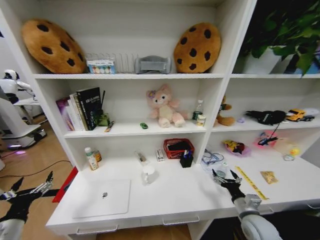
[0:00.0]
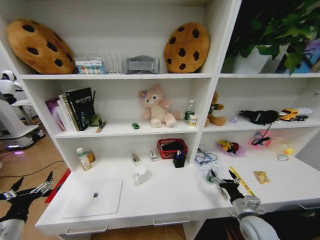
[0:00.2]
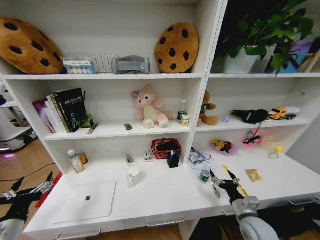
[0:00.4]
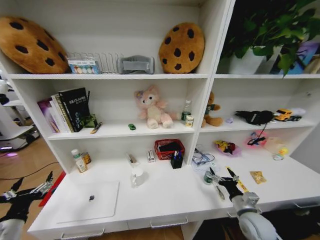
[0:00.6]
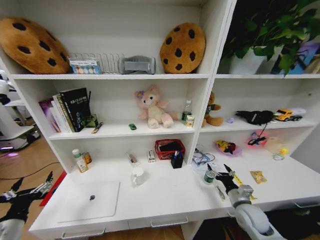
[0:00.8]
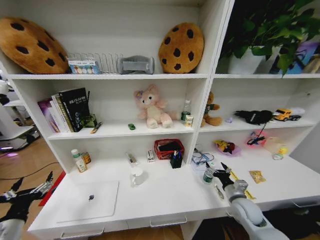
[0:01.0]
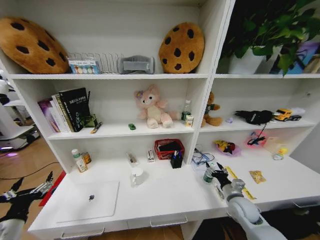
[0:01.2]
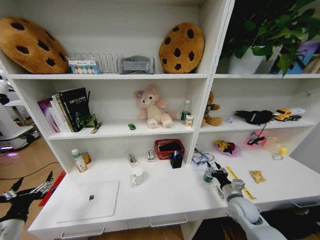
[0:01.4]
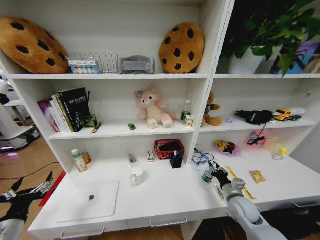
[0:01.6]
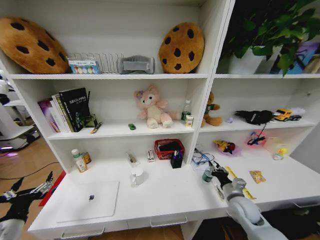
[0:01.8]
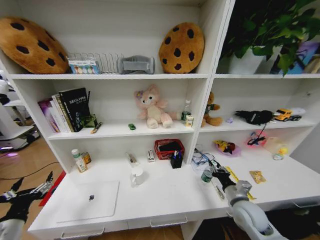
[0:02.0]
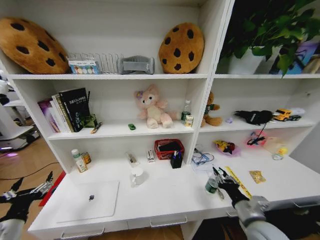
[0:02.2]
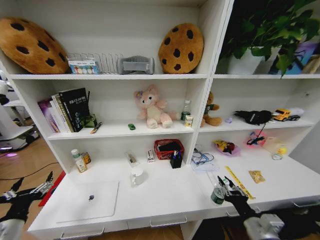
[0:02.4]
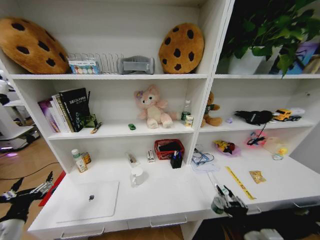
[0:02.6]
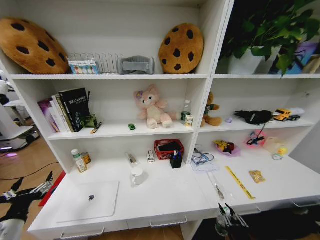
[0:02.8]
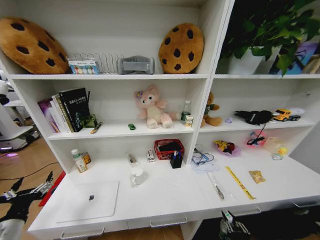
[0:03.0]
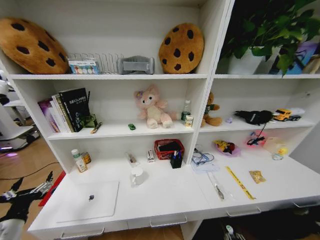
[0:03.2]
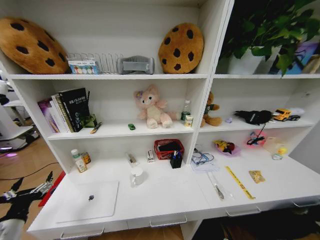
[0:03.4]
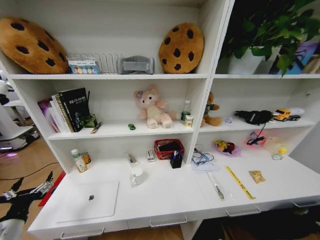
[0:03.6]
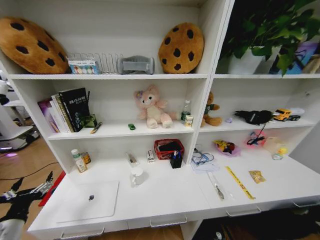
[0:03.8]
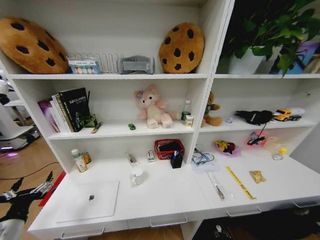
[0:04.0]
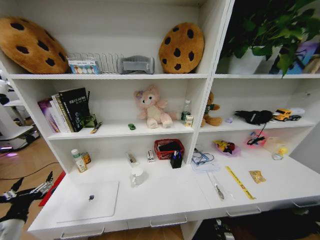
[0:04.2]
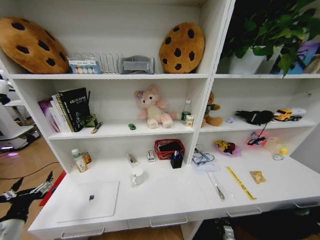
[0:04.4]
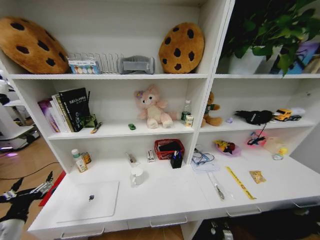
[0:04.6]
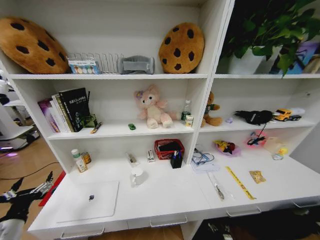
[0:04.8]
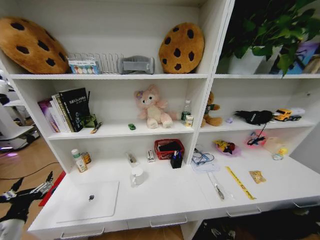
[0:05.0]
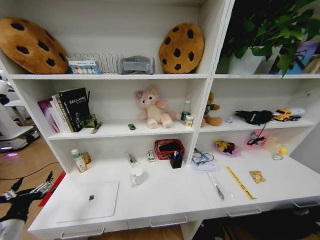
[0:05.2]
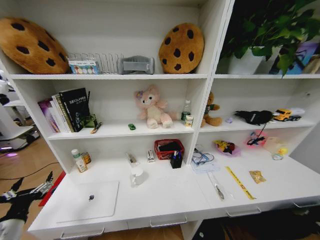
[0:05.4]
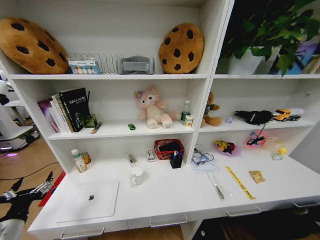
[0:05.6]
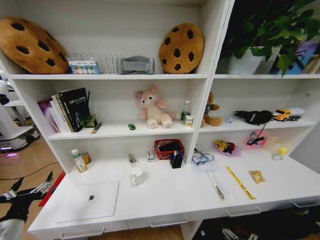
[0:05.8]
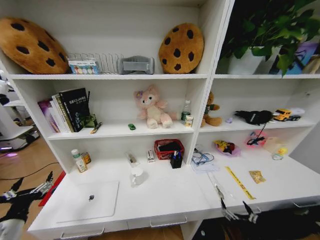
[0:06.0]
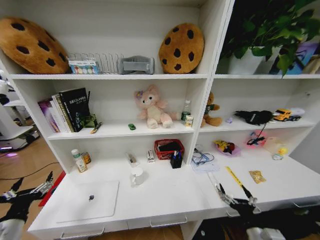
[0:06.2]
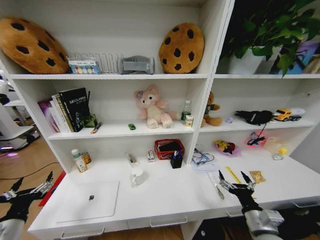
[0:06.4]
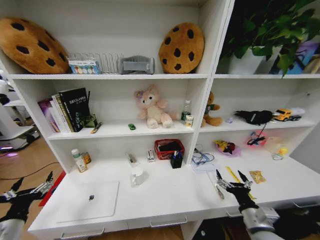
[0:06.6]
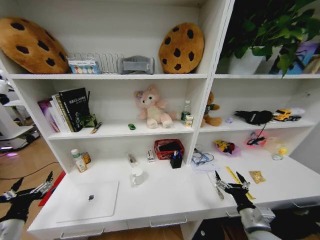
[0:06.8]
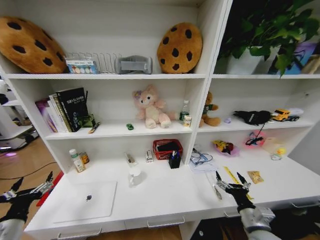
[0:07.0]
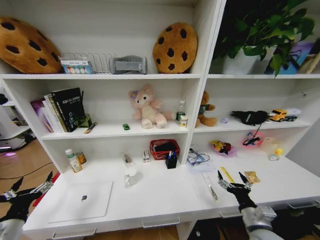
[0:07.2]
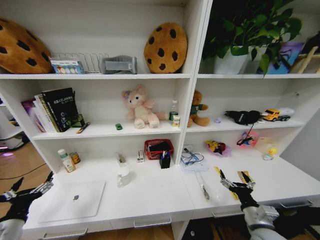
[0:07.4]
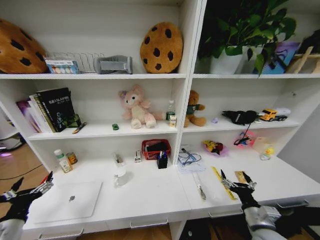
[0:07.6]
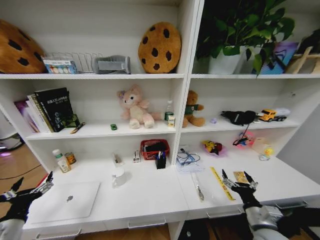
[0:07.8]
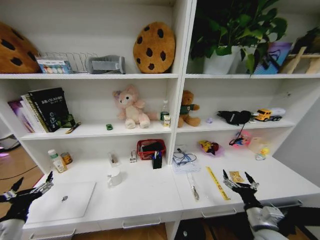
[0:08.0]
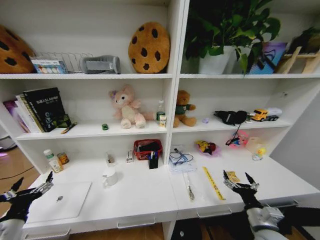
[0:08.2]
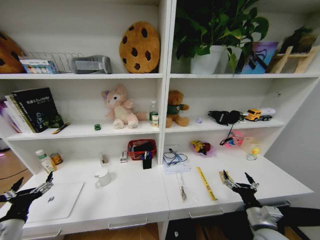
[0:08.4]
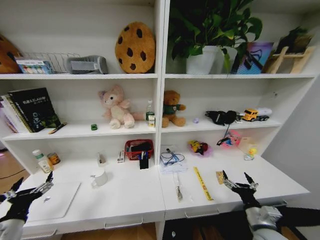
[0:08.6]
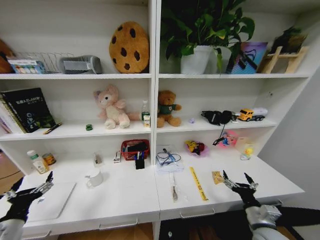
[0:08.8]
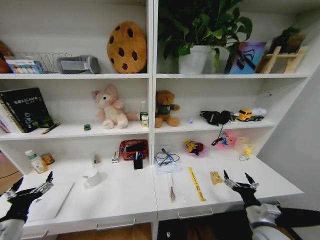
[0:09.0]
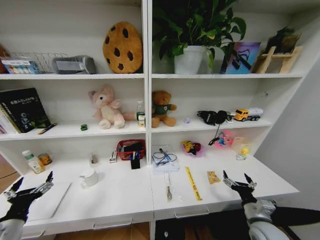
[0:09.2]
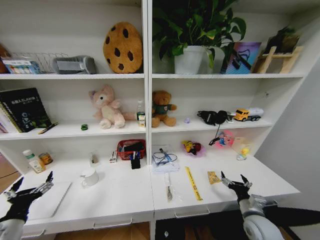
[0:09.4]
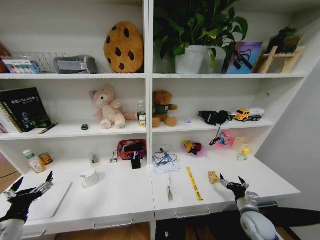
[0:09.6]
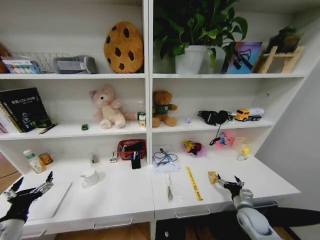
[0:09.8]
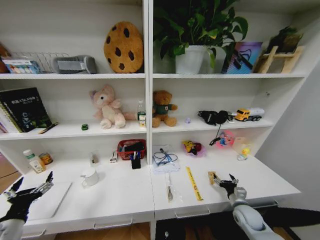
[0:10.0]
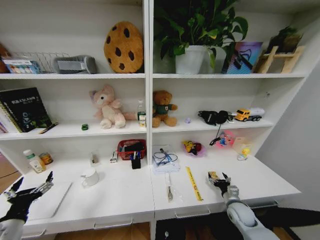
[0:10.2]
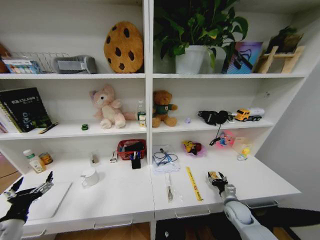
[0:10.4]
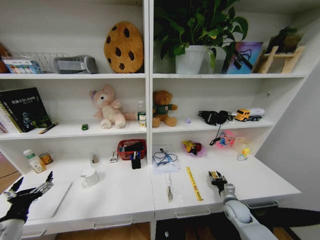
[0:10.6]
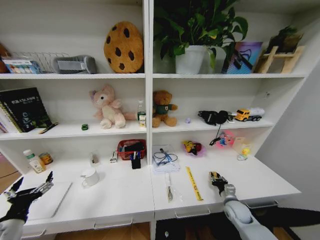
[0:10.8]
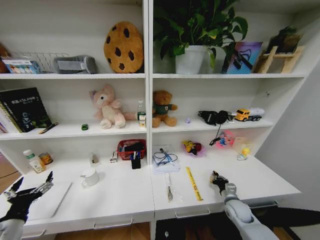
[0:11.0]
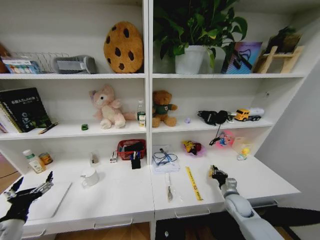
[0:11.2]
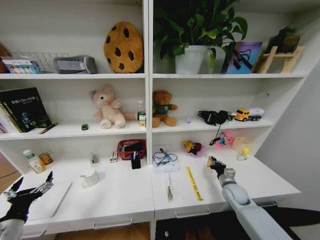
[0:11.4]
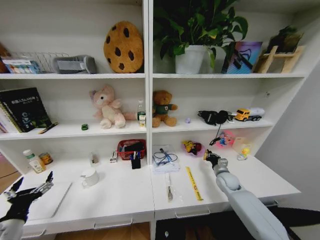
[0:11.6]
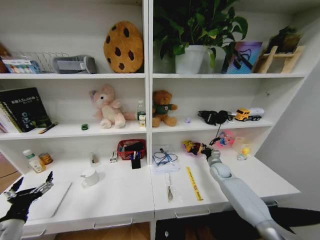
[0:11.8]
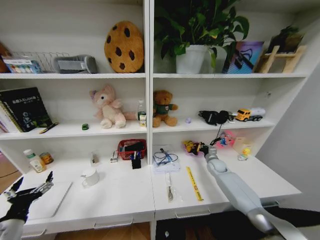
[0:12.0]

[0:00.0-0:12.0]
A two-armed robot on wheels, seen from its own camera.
Task of the whole recording: Organize the objects on the table.
0:00.0 to 0:01.6: The right gripper travels forward by roughly 5 cm, and closes.
0:01.6 to 0:03.0: The right gripper is displaced backward by roughly 25 cm.
0:03.0 to 0:04.4: The right gripper goes some 25 cm downward and forward.
0:04.4 to 0:06.0: The right gripper heads upward and backward, covering some 25 cm, and opens.
0:06.0 to 0:07.6: The right gripper travels forward and upward by roughly 15 cm.
0:09.0 to 0:10.4: The right gripper goes approximately 15 cm forward and downward.
0:10.4 to 0:12.0: The right gripper goes about 25 cm forward, and closes.

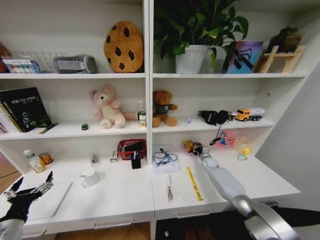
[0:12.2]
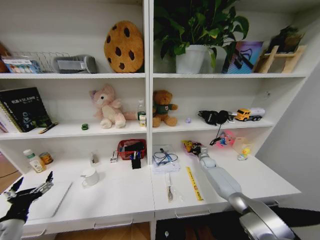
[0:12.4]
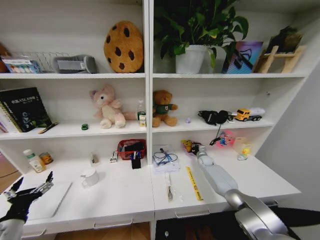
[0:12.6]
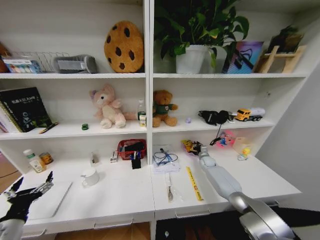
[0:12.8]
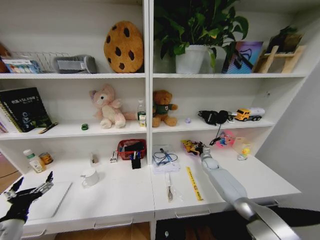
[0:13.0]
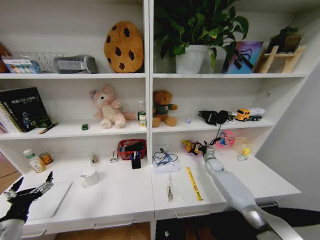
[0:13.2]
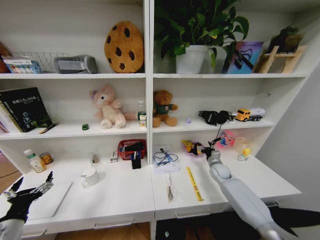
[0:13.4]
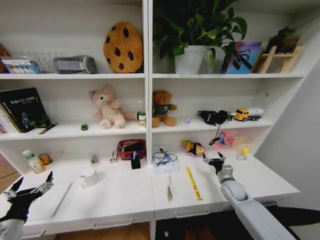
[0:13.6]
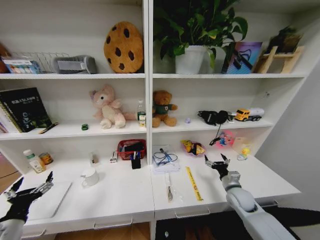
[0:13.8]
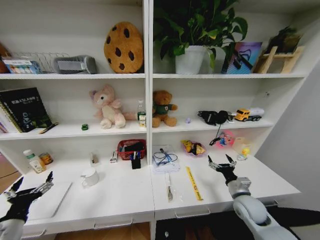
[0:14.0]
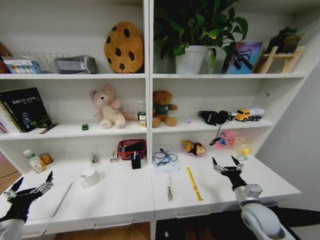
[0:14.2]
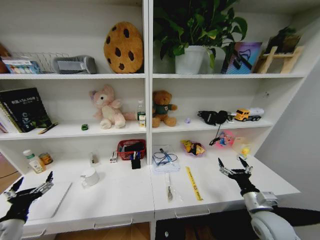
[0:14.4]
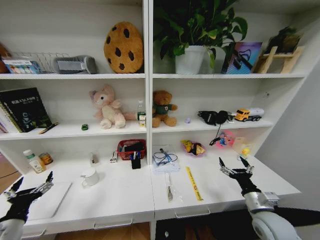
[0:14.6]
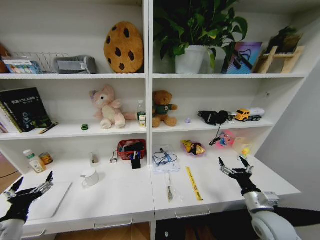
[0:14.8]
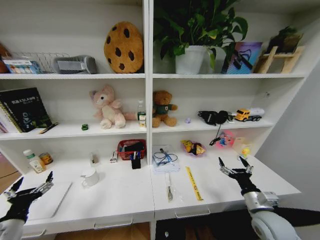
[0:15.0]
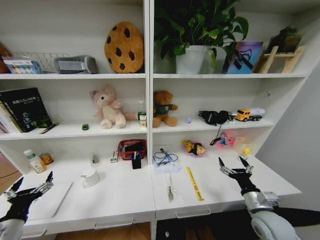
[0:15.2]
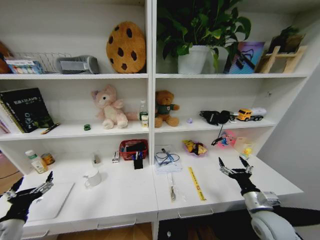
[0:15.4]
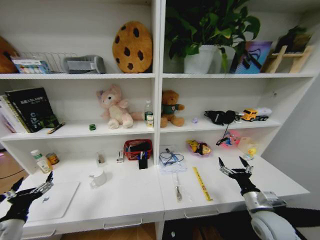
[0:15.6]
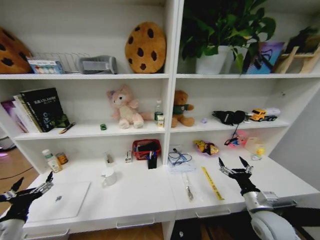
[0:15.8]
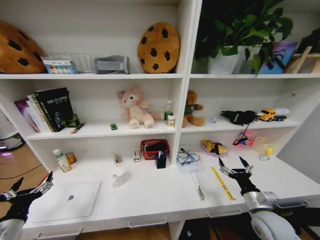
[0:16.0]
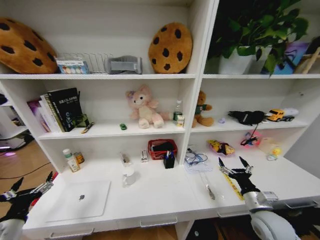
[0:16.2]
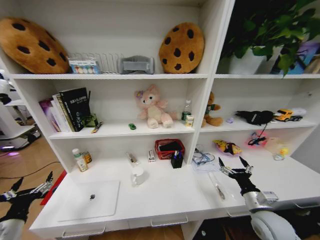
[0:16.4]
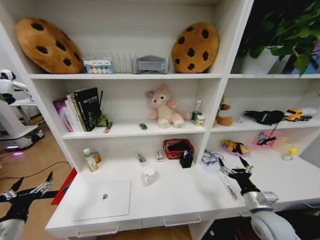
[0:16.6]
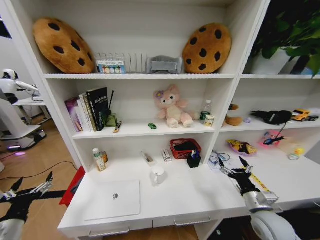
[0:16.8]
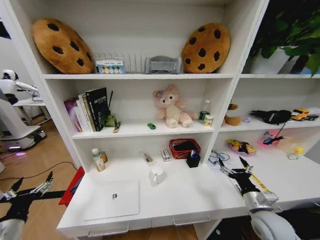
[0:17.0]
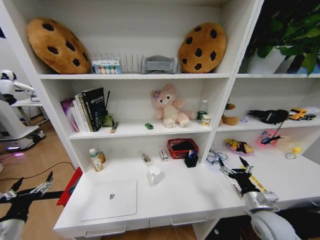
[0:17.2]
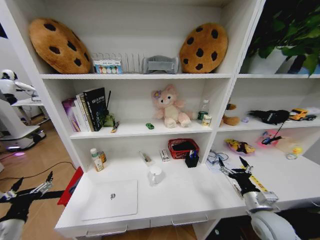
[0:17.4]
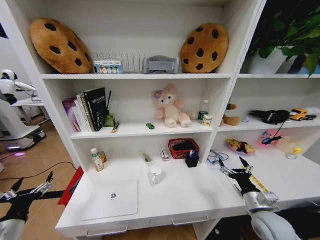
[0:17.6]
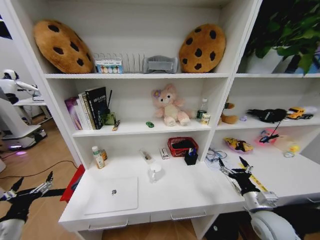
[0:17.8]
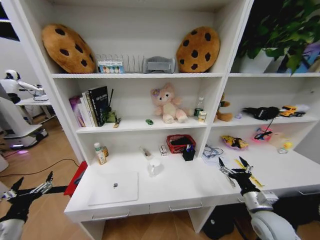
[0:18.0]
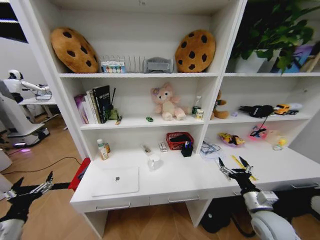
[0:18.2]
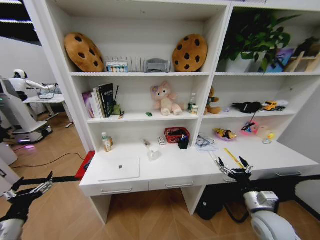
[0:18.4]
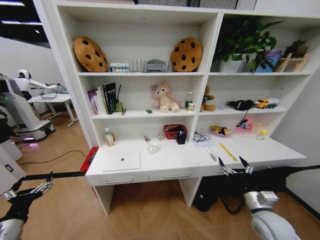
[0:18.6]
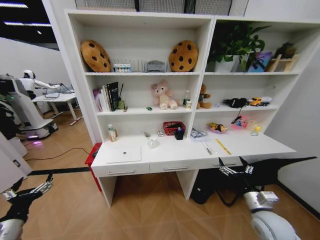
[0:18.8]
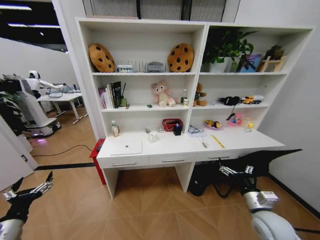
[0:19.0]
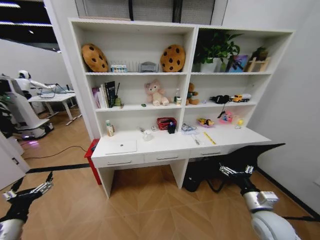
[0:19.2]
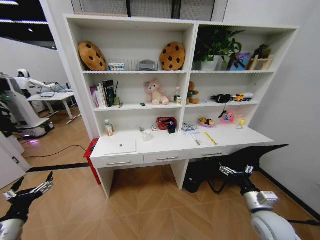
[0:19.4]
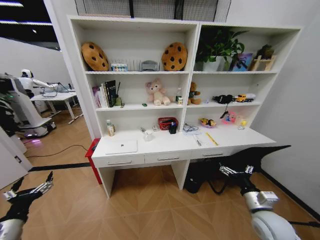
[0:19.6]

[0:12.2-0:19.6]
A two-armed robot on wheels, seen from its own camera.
Task of the whole recording: Organize the objects on the table.
0:12.2 to 0:13.6: The right gripper goes approximately 15 cm backward, and opens its fingers.
0:13.6 to 0:15.2: The right gripper moves backward and upward, approximately 20 cm.
